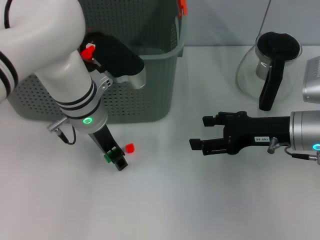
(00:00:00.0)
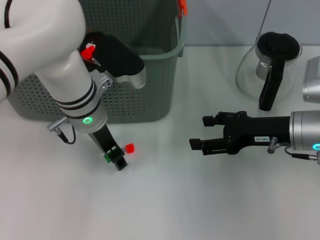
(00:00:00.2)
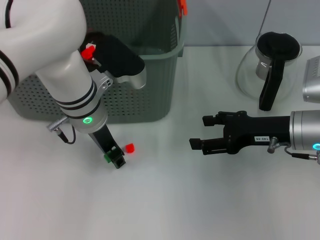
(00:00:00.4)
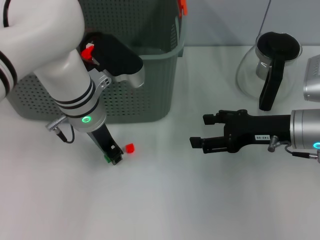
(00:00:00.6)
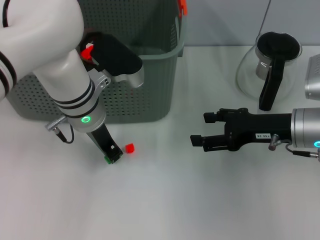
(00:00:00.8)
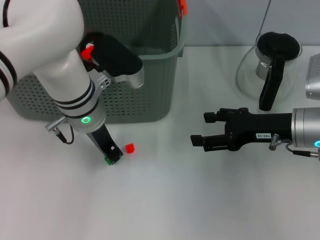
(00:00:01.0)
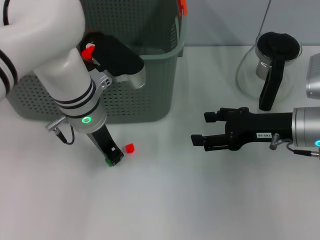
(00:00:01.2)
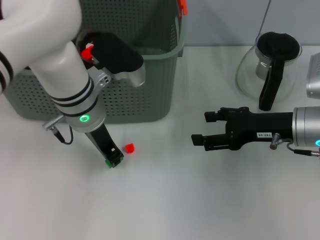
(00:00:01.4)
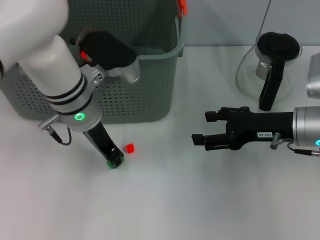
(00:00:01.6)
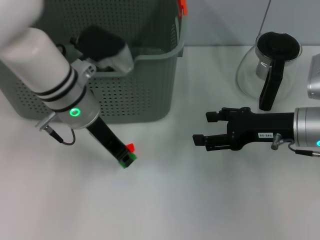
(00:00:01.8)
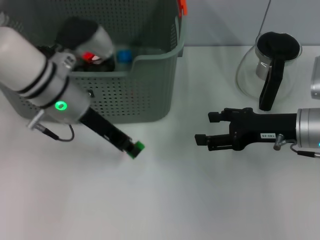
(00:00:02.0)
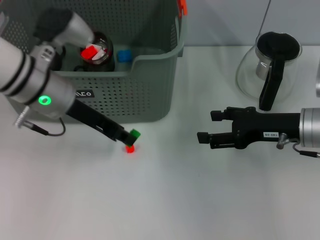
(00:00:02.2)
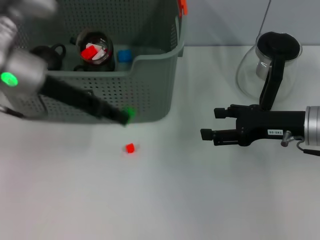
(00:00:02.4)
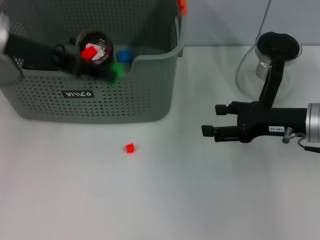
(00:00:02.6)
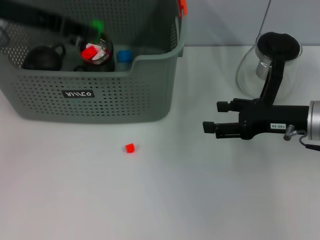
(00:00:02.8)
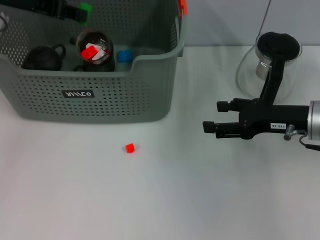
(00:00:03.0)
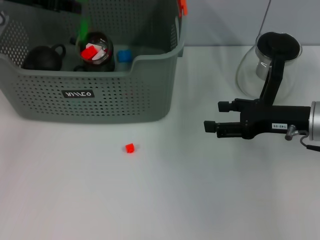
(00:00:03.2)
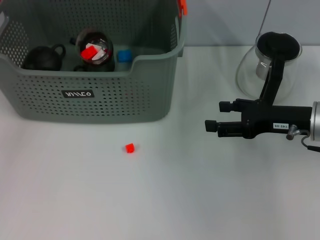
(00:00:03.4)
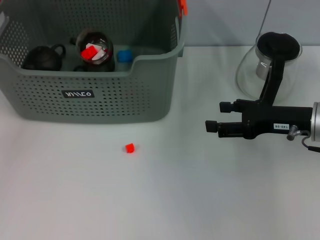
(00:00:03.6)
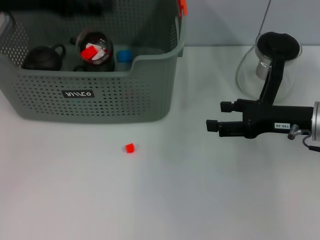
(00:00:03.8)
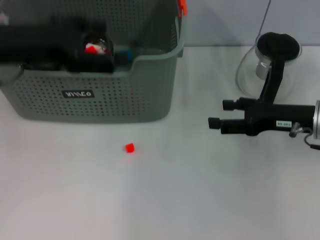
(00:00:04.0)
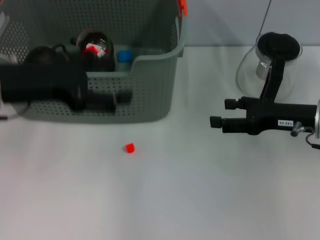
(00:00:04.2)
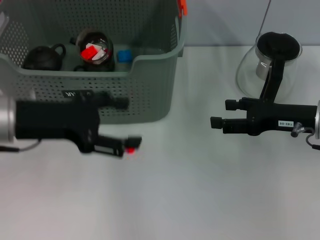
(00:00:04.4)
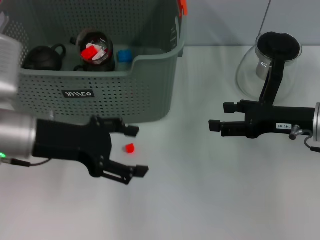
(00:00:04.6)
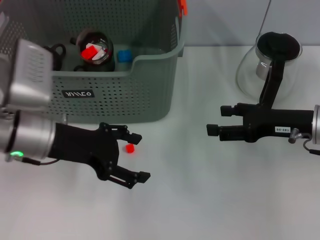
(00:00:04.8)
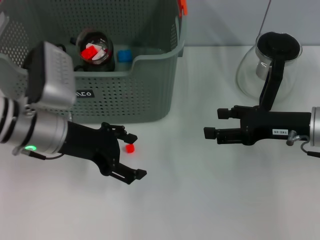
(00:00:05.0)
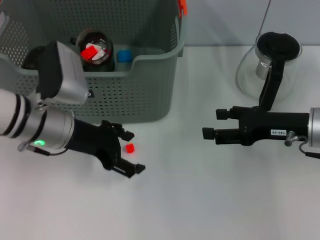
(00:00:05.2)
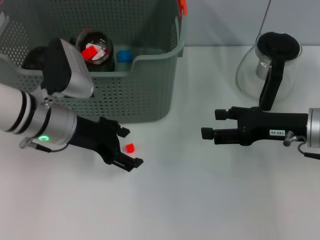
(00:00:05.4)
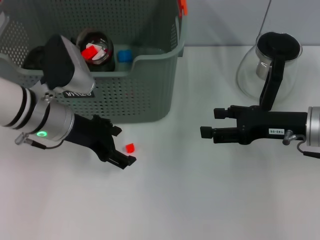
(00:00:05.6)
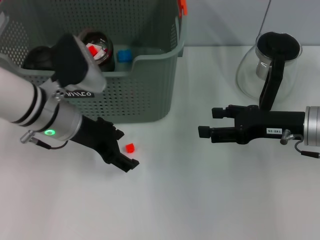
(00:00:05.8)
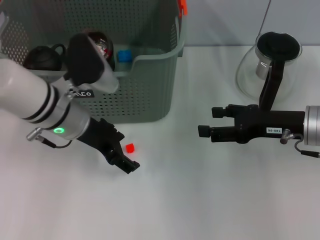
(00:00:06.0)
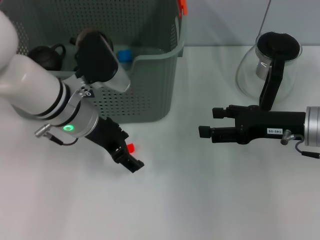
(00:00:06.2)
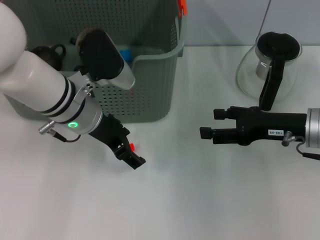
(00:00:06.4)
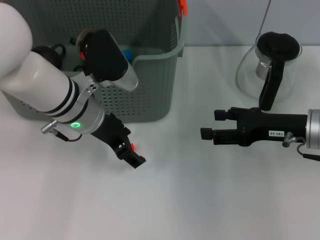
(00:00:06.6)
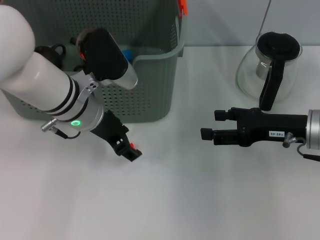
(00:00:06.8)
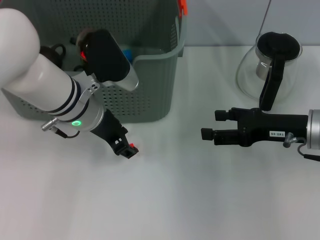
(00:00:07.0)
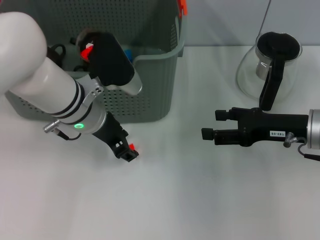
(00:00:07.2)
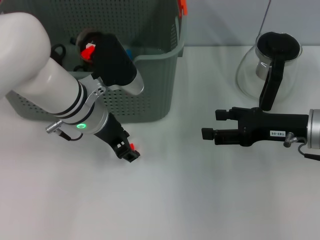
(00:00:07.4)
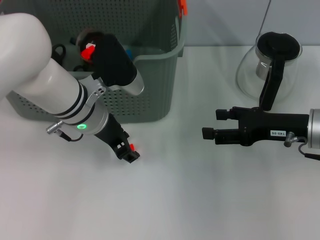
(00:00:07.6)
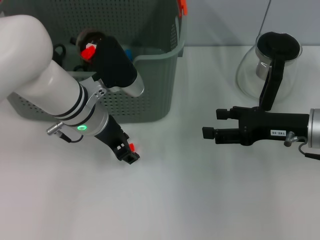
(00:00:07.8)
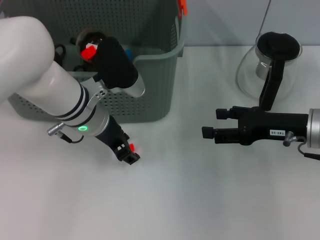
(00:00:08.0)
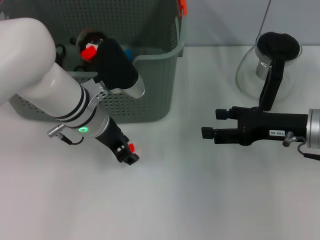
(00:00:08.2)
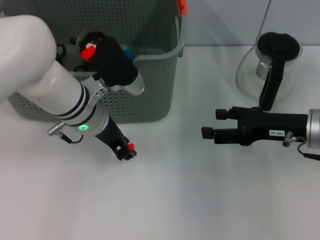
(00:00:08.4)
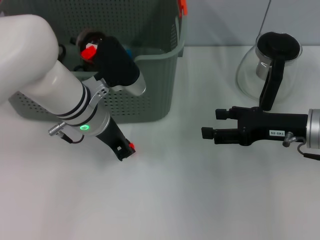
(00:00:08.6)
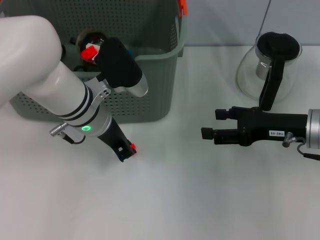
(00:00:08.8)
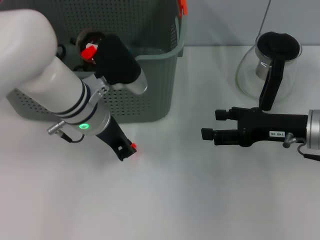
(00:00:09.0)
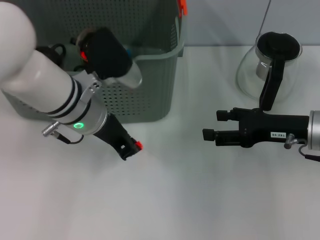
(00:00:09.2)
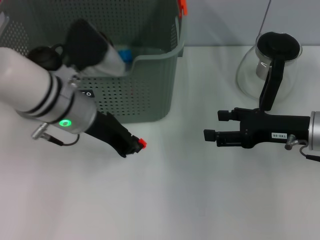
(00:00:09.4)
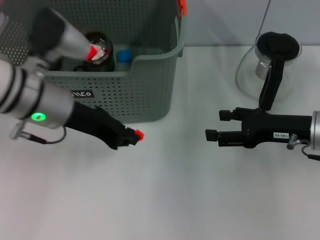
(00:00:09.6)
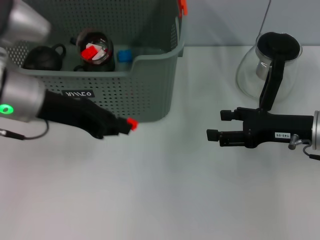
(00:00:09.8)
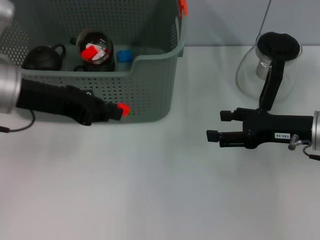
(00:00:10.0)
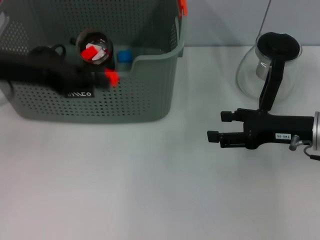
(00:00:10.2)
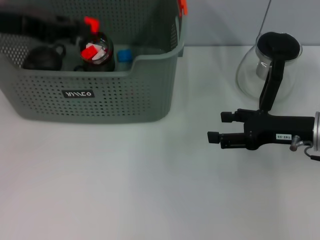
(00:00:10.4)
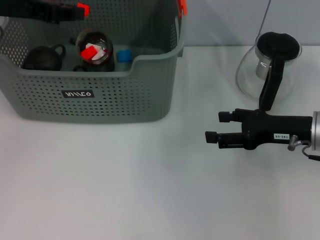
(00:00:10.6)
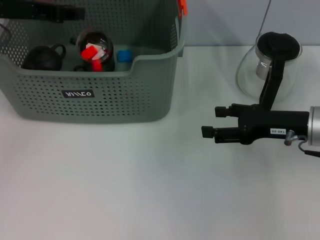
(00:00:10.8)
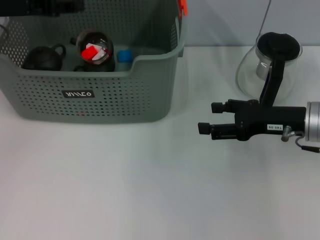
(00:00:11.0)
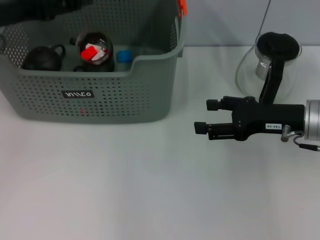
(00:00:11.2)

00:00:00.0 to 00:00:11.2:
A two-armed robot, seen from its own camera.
Task of the whole recording: pick up the teacup on the table and place it into the storage bin, pick up the block on the table and place it into the storage bin.
Step, 00:00:01.2 to 00:00:03.2: Place the green block in the storage box with left gripper.
Step, 00:00:03.4 to 00:00:08.8: Grasp the orange block with left gripper.
Step, 00:00:09.0 to 00:00:10.8: Place the orange block in the storage box with left gripper.
00:00:00.0 to 00:00:01.6: The left gripper closes.
00:00:01.6 to 00:00:03.2: The left gripper heads to the left and upward, covering approximately 20 cm.
00:00:03.2 to 00:00:04.8: The left gripper goes some 20 cm downward, backward and to the right, and opens up.
00:00:04.8 to 00:00:06.4: The left gripper moves to the right and forward, approximately 10 cm.
00:00:06.4 to 00:00:08.0: The left gripper closes.
00:00:08.0 to 00:00:09.6: The left gripper moves upward and to the left, roughly 10 cm, and closes up.
00:00:09.6 to 00:00:11.2: The left gripper goes about 10 cm to the left and upward, and opens up.

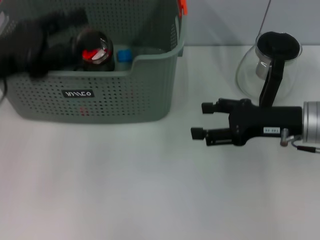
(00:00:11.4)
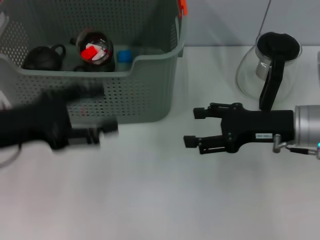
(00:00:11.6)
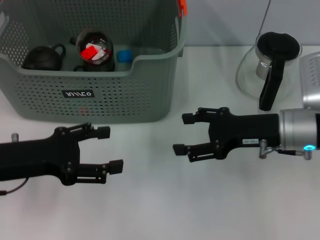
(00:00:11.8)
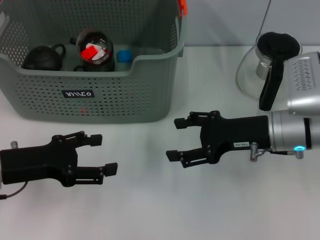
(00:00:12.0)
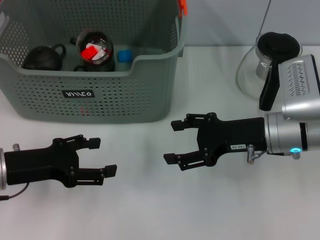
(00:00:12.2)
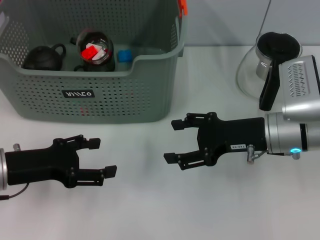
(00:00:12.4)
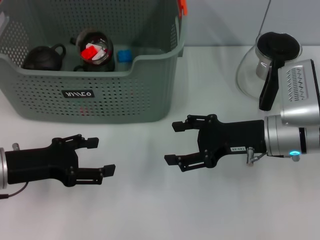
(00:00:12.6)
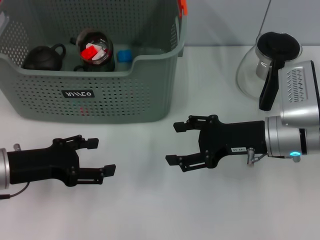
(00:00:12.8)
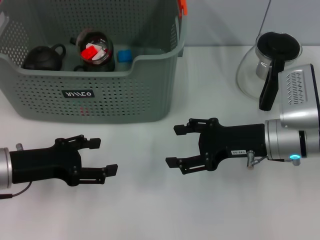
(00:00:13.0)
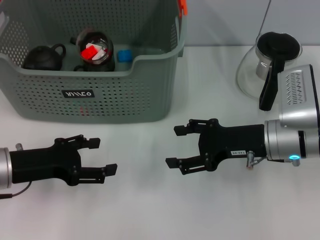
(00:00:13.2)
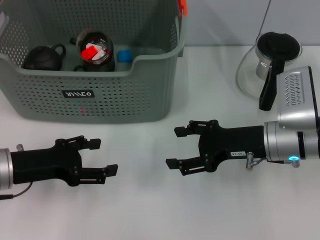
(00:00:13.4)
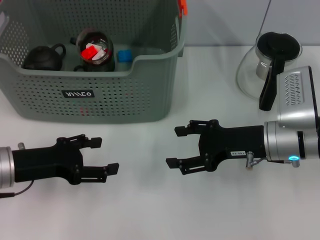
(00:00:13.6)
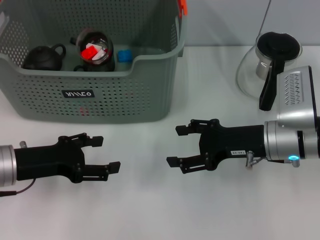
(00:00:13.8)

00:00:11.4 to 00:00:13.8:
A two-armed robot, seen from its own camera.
Task of the whole recording: pick up the teacup on the table and place it into the storage bin, pick up the block on the table and place it into the storage bin.
00:00:11.4 to 00:00:12.6: The left gripper goes some 10 cm downward.
00:00:12.6 to 00:00:13.8: Both grippers stay about where they are.
